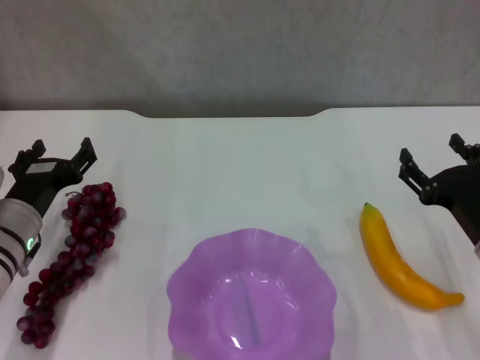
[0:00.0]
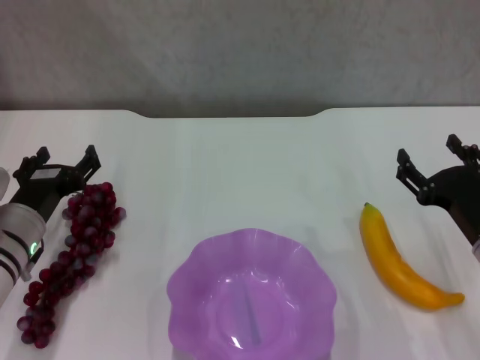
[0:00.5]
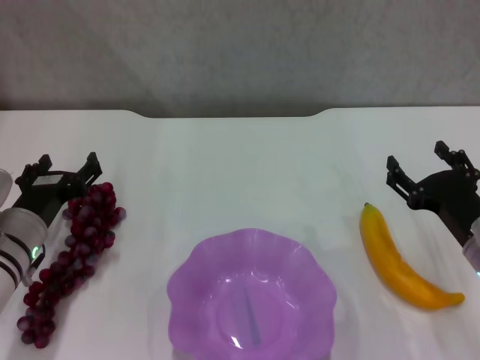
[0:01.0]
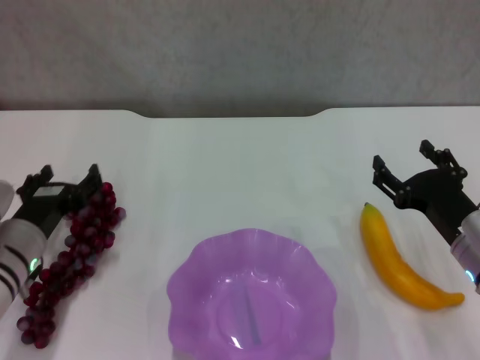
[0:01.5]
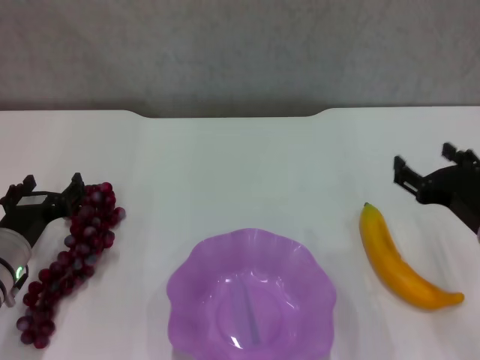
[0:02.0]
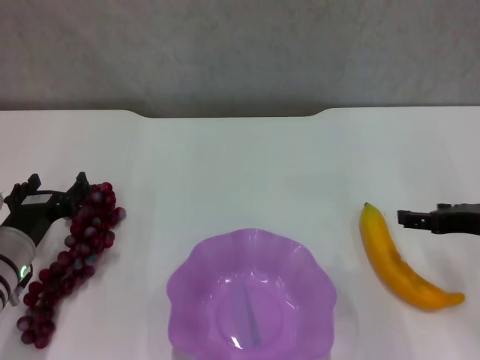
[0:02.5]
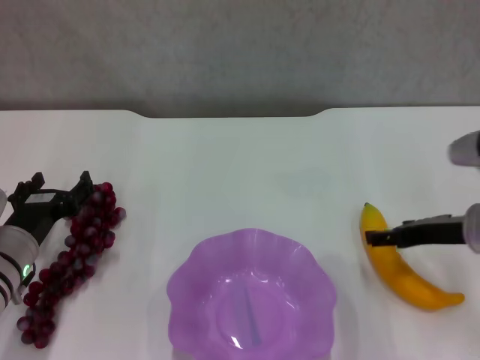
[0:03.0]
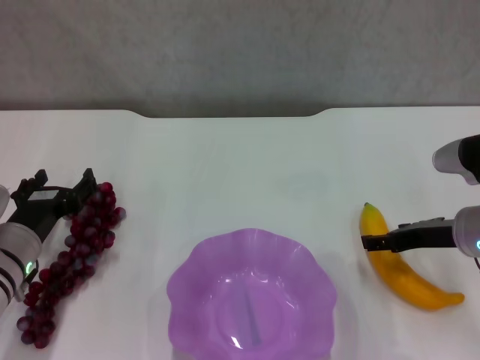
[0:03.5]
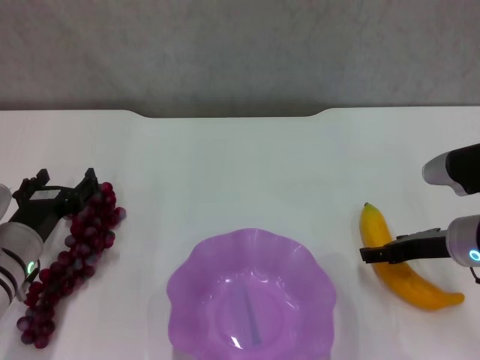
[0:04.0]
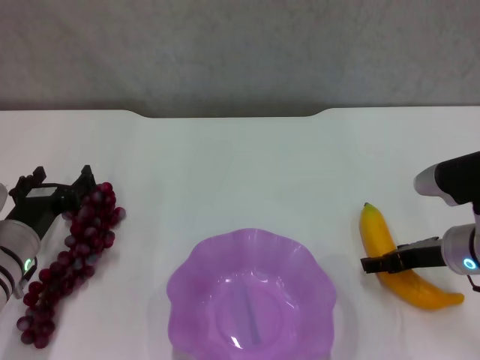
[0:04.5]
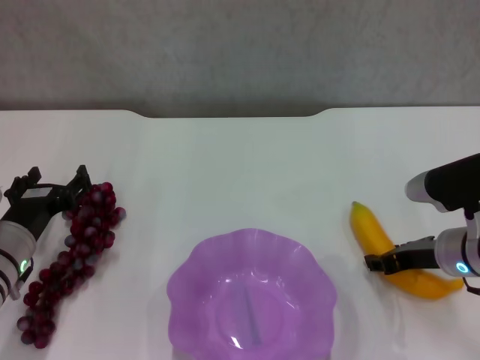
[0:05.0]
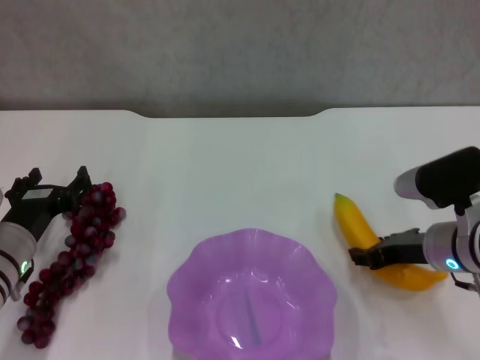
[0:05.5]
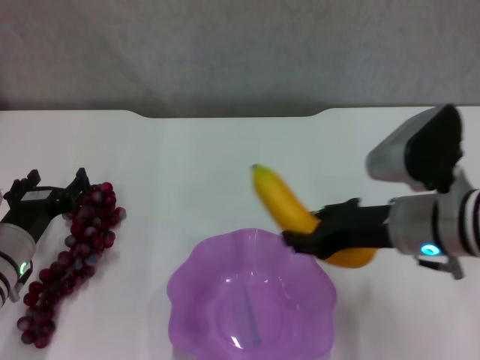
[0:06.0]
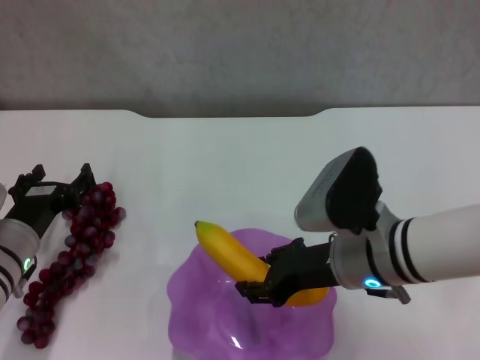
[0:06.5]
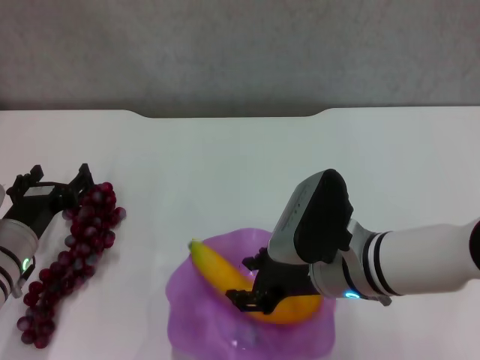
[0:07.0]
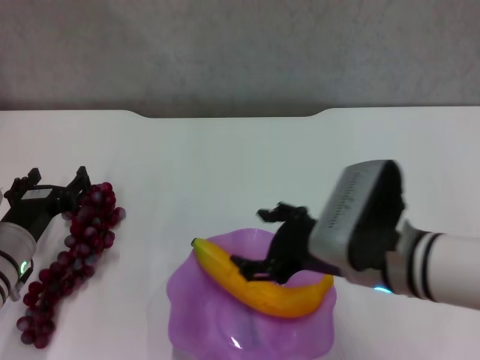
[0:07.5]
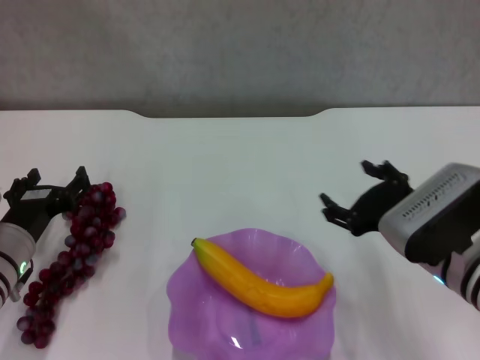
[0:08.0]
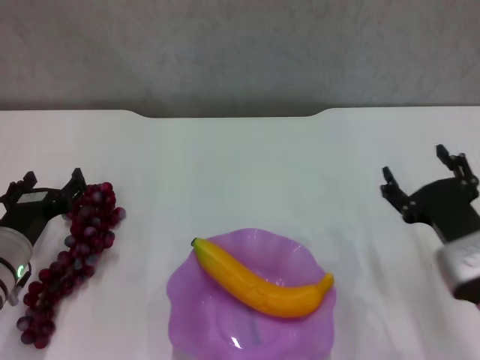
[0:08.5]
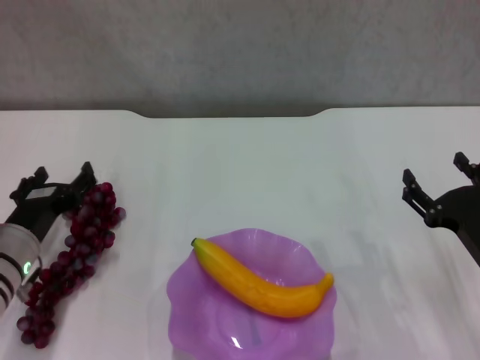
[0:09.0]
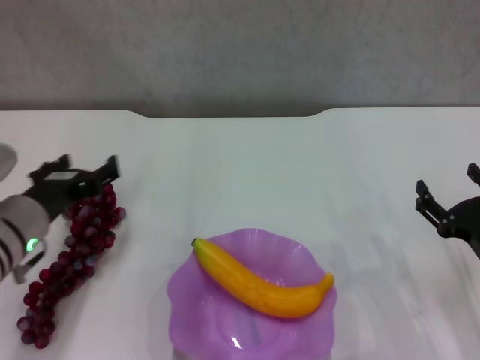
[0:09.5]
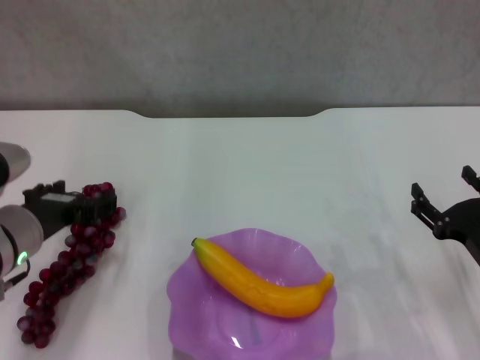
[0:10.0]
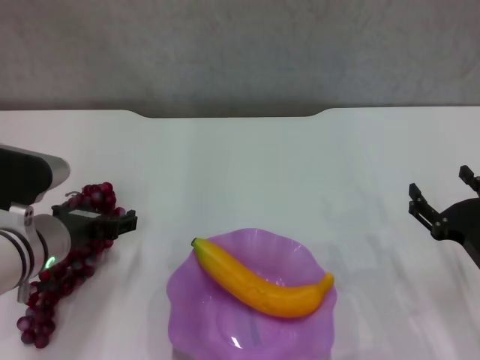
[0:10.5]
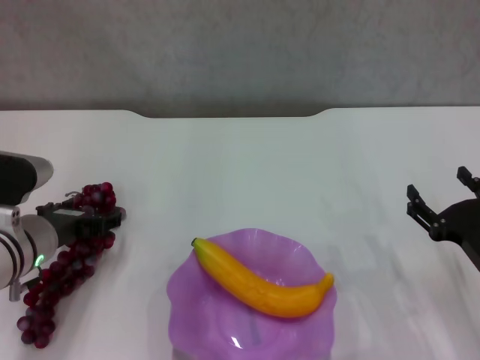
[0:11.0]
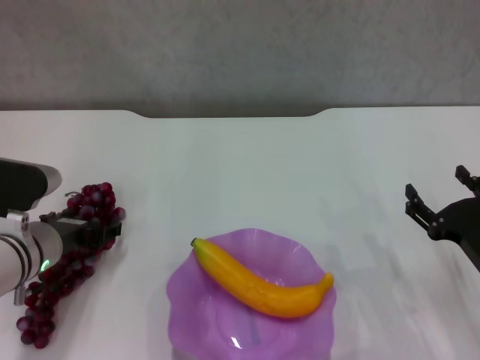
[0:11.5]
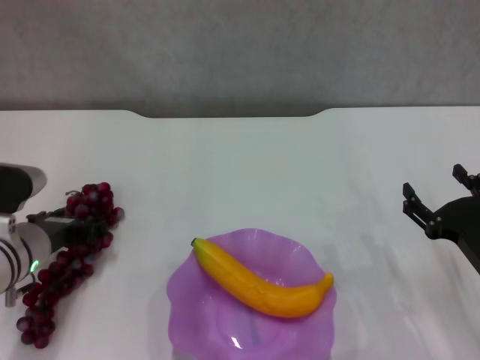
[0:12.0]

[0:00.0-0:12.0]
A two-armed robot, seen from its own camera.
Step, 0:00.0 to 0:05.0: Grasp the banana with right gripper.
Step, 0:05.5 to 0:07.5: Place the banana in the purple plate with right gripper.
0:00.0 to 0:02.0: The grippers move only a little.
0:02.0 to 0:04.0: The right gripper shifts approximately 5 cm forward.
0:04.0 to 0:06.0: The right gripper heads to the left and upward, covering some 10 cm, and closes its fingers.
0:06.0 to 0:08.0: The right gripper moves approximately 5 cm to the left and comes back, and opens its fingers.
0:08.0 to 0:10.0: The left gripper shifts roughly 10 cm upward; the right gripper heads to the right and downward, covering some 10 cm.
0:10.0 to 0:12.0: The left gripper moves downward, some 5 cm.

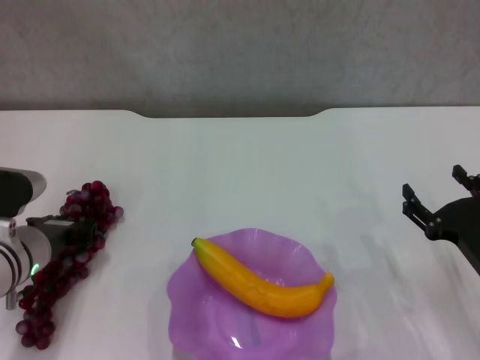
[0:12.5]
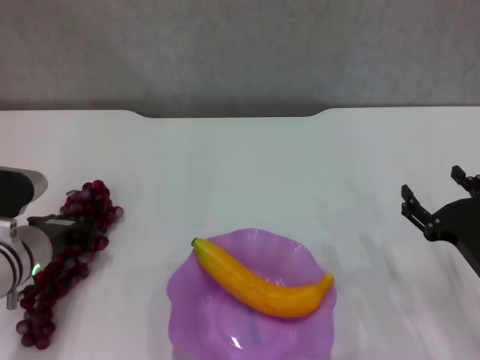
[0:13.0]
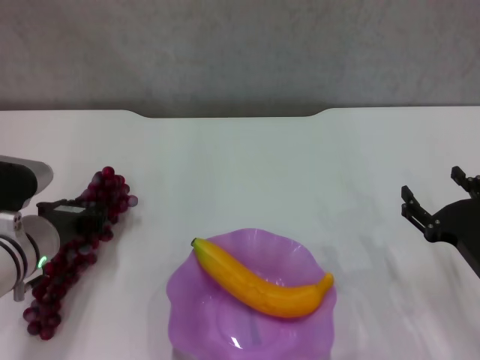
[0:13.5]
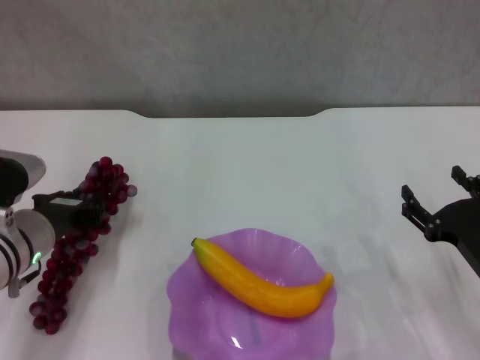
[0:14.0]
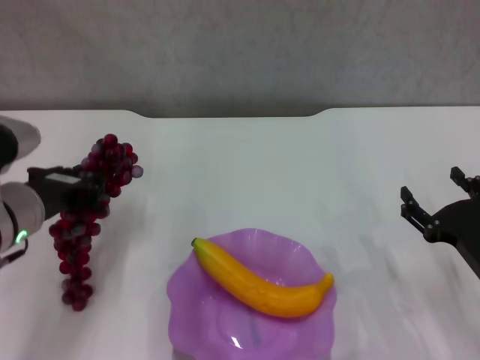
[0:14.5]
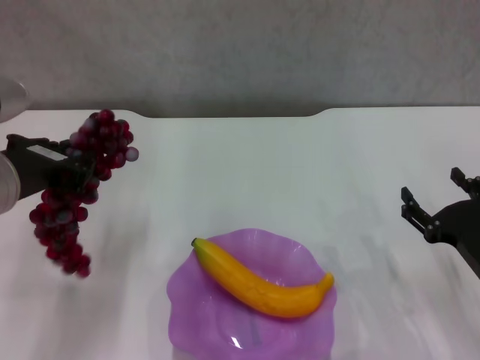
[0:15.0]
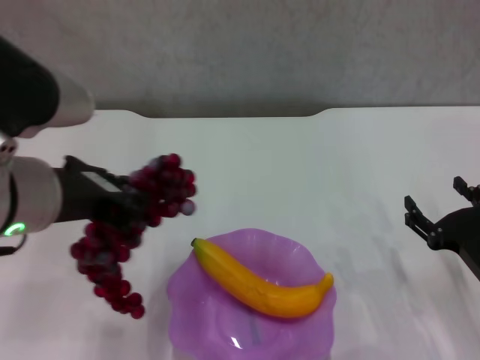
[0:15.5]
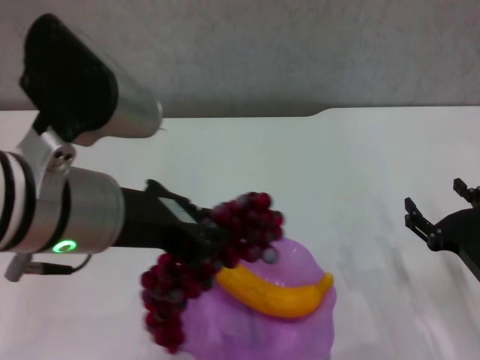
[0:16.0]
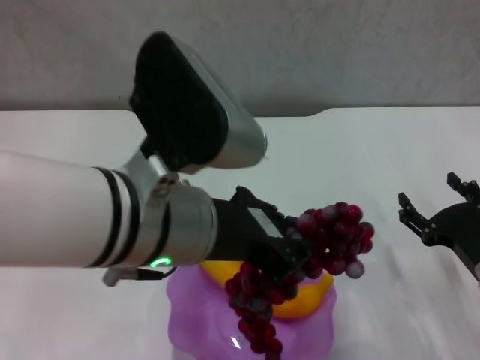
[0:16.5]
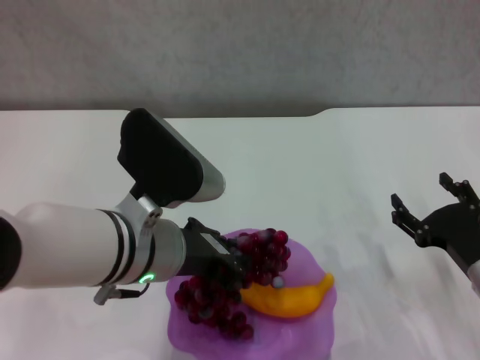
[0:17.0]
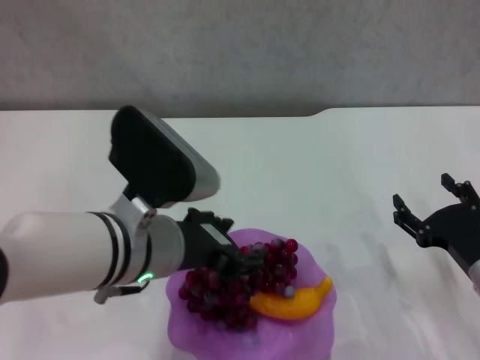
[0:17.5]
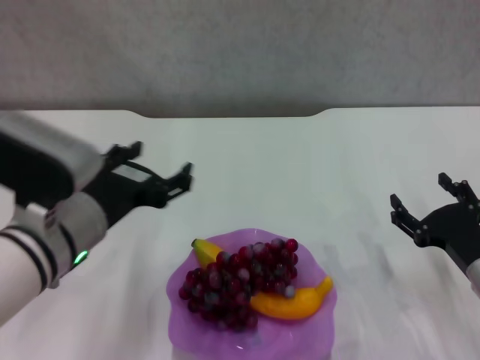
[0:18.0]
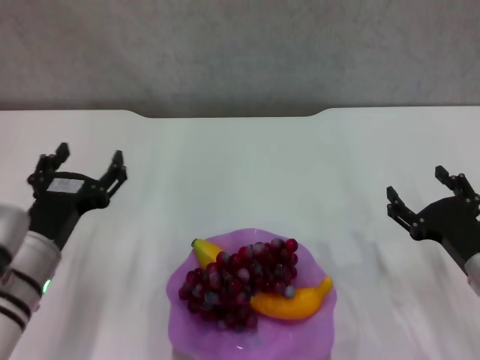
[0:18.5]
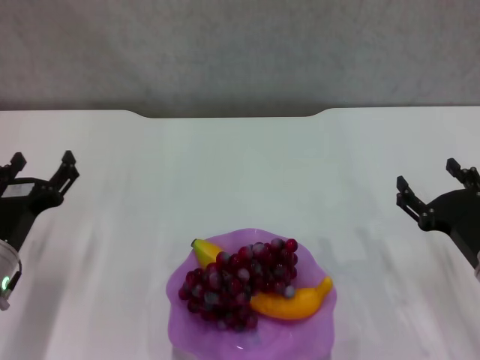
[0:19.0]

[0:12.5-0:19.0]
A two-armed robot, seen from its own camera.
Step, 0:13.5 to 0:17.5: Place the grape in the purple plate with left gripper.
0:12.5 to 0:14.5: The left gripper heads upward, covering about 10 cm.
0:14.5 to 0:17.0: The left gripper goes roughly 10 cm to the right.
0:17.0 to 0:19.0: The left gripper shifts some 20 cm to the left and downward, and opens its fingers.
